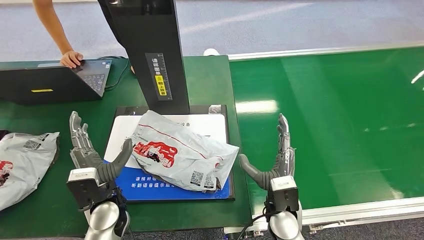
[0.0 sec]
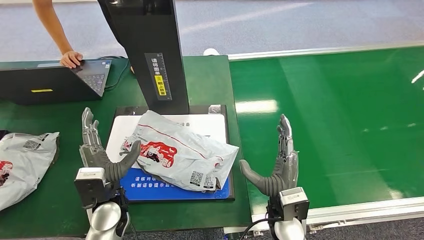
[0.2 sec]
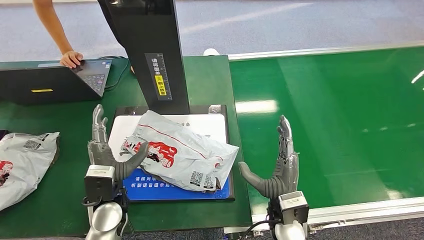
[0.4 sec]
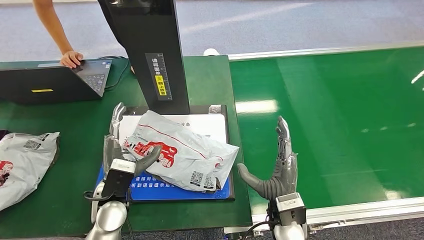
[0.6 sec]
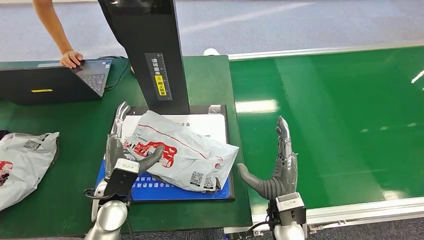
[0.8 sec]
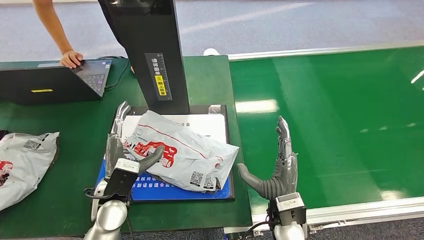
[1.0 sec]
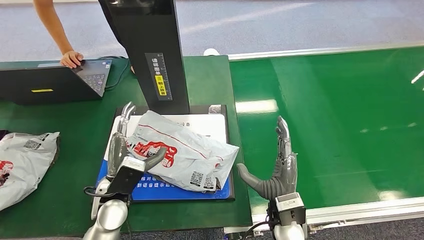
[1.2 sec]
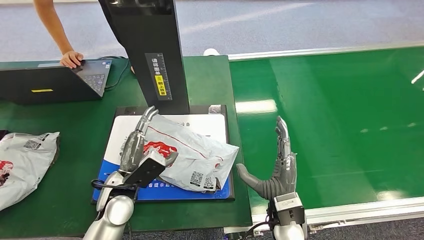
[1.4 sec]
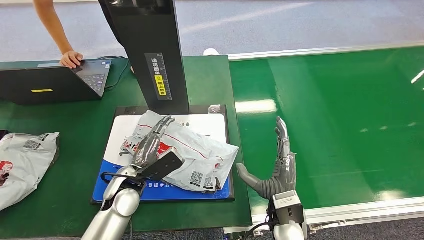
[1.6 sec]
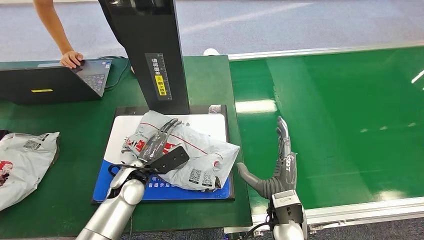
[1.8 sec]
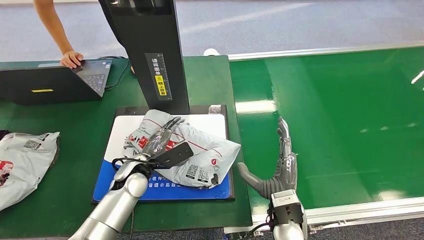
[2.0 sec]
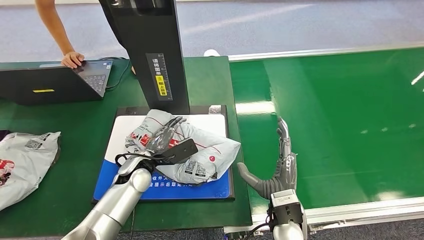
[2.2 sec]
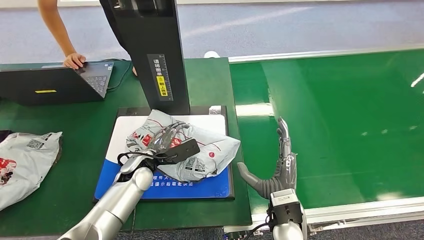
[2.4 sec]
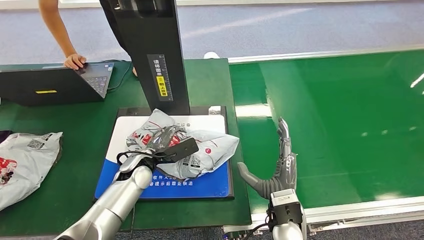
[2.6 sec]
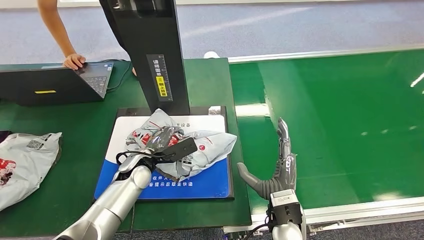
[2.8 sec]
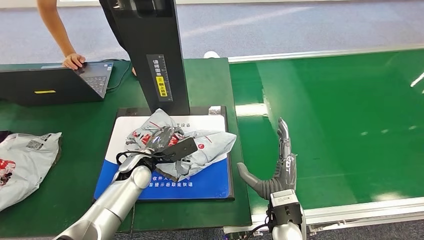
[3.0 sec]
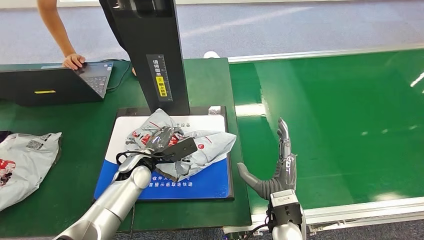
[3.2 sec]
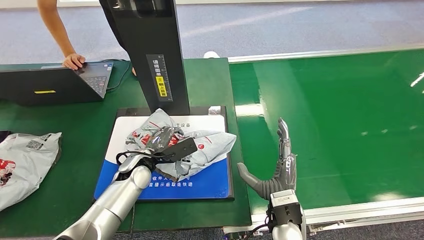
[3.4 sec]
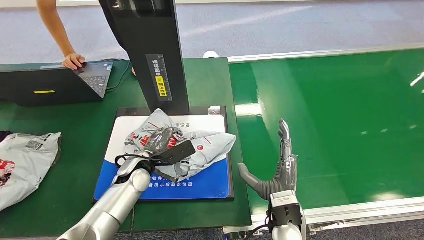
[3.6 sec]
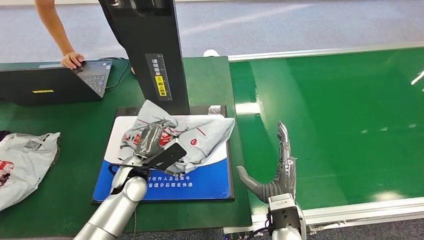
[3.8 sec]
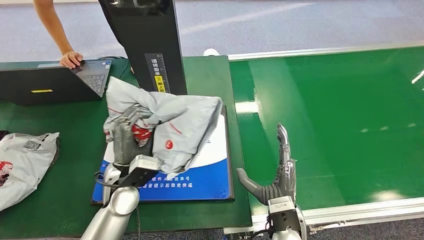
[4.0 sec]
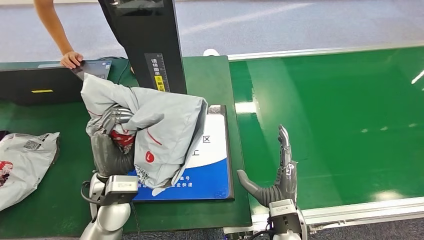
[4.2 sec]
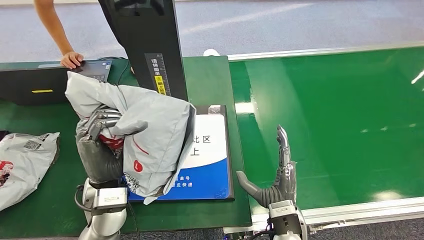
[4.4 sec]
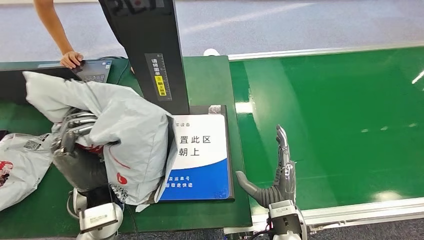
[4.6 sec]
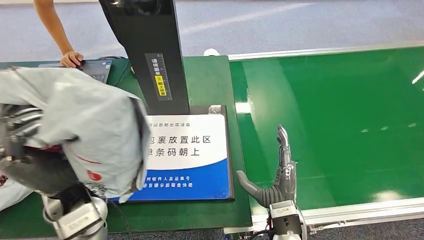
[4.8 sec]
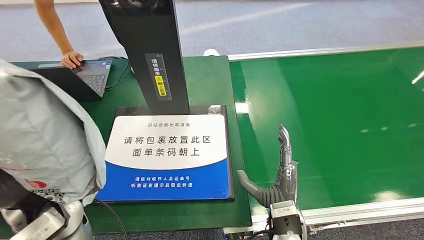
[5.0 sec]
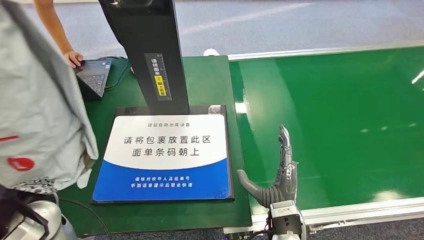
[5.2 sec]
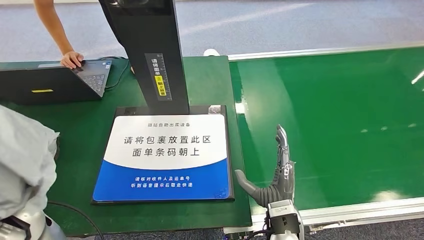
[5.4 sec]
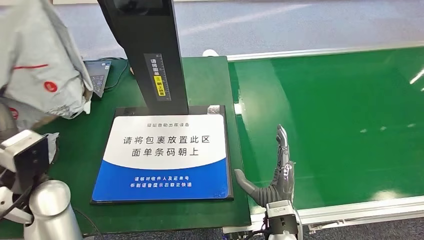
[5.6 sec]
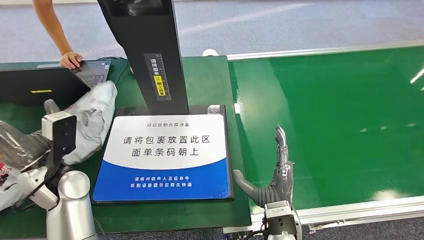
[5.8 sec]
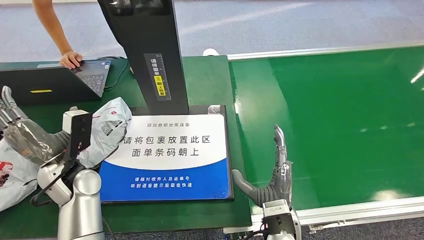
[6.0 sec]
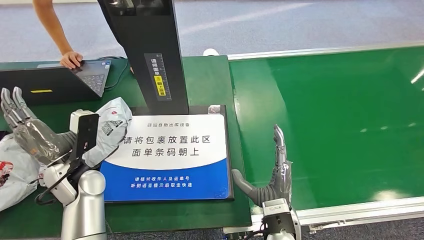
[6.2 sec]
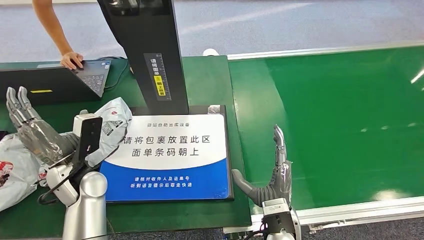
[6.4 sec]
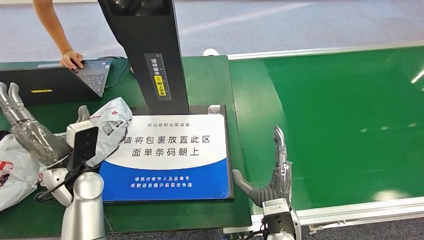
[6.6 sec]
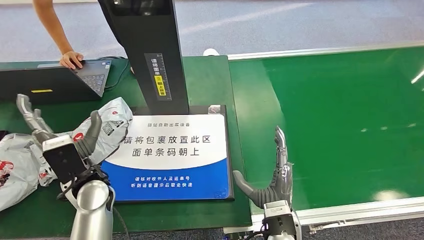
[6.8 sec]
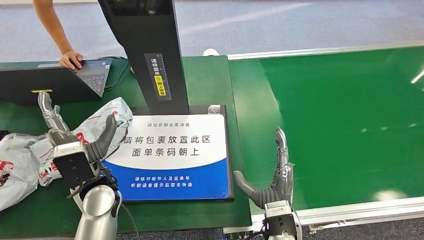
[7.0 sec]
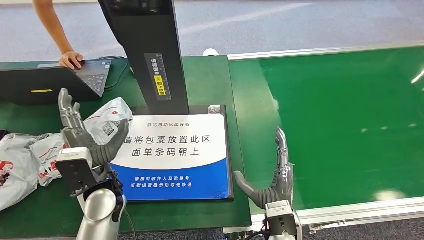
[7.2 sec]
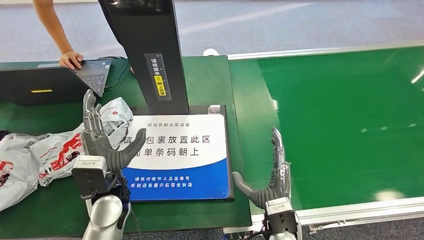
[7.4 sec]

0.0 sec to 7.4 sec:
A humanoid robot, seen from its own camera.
Step, 0.6 sec to 4.0 sec: Pick up the package from the inbound machine.
Step, 4.4 sec to 7.4 sec: Place the package into the parcel locker.
1.4 sec to 3.0 sec: The left hand heads forward, covering roughly 10 cm.
6.0 sec to 7.4 sec: The left hand heads to the right, covering some 10 cm.
